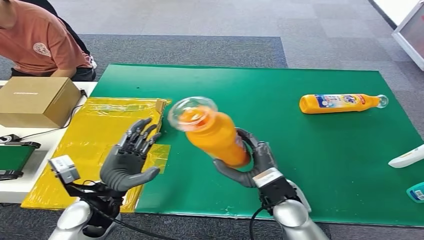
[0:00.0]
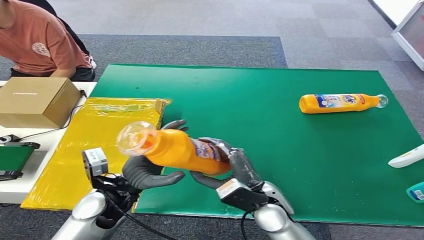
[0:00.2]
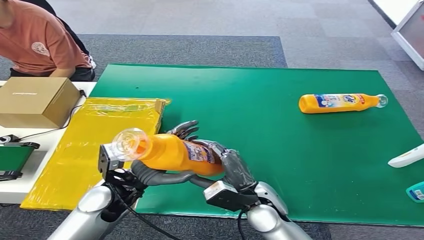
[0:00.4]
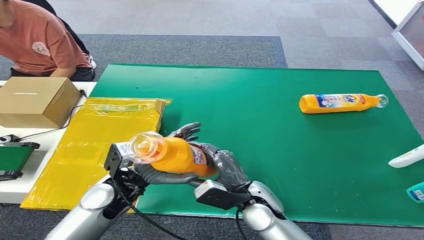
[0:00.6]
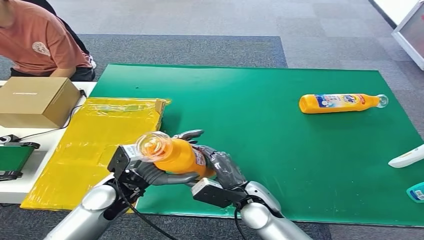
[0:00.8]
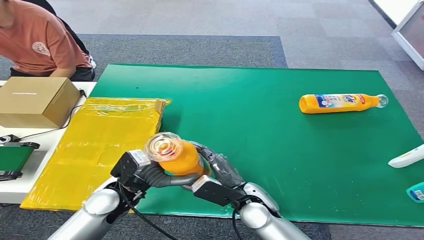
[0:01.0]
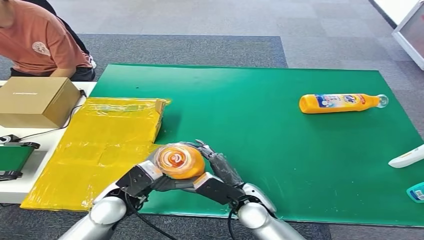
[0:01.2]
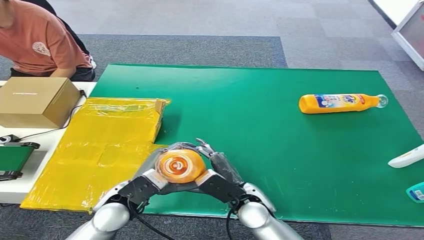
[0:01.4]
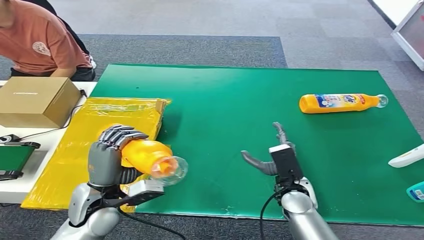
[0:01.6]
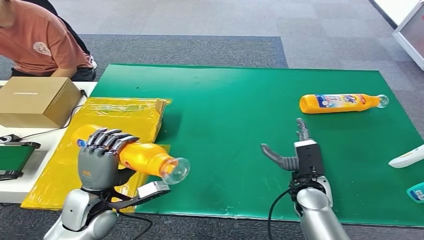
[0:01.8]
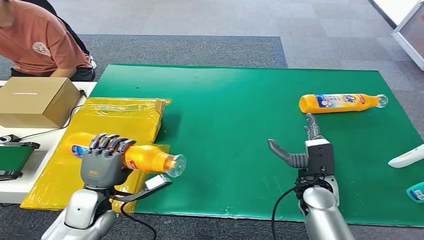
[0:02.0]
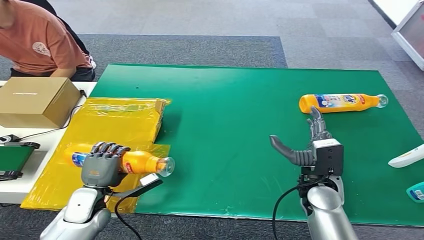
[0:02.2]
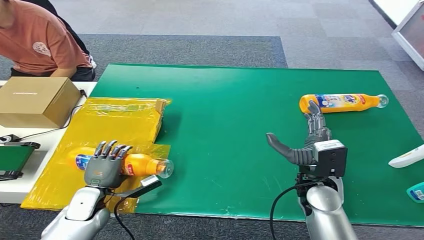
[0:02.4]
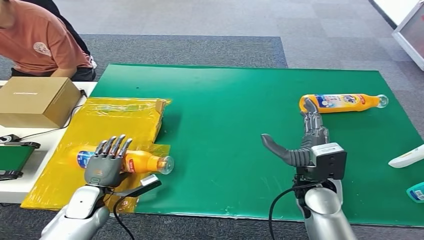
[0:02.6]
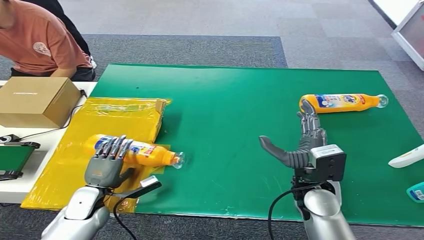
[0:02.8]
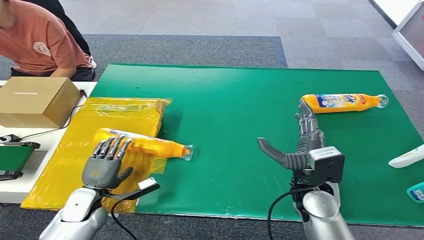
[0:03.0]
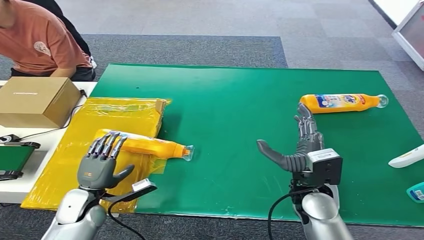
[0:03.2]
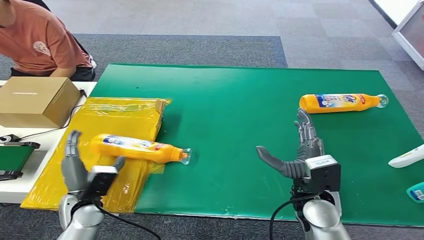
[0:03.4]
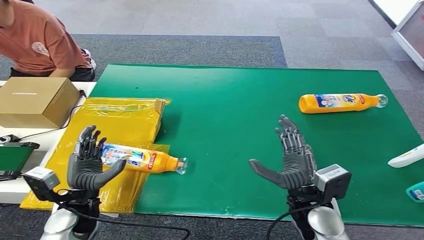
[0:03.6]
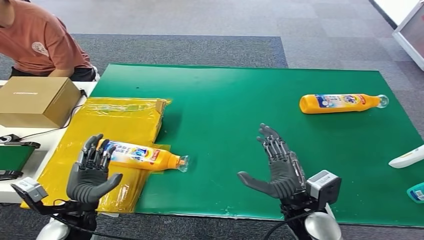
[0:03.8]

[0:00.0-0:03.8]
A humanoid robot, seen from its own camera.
Step, 0:00.0 to 0:03.8: Turn the bottle to the front side.
0:00.0 to 0:01.2: The right hand ends up some 5 cm from where it was.
0:01.2 to 0:02.6: The left hand travels to the left and downward by about 15 cm. The right hand moves to the right and upward, approximately 10 cm.
0:02.6 to 0:03.8: The left hand goes about 10 cm upward and backward, while the right hand heads backward, covering some 5 cm.

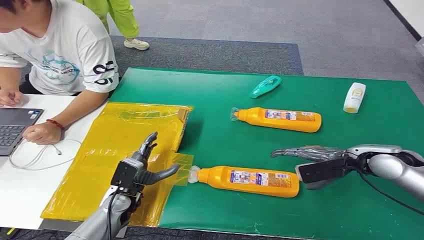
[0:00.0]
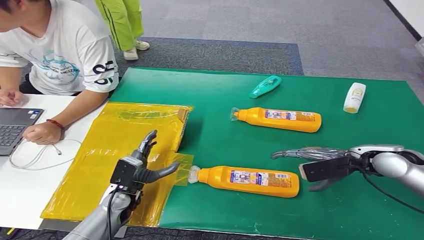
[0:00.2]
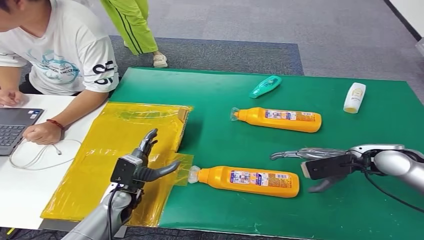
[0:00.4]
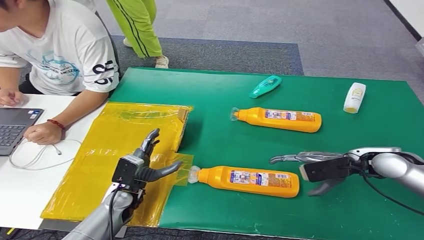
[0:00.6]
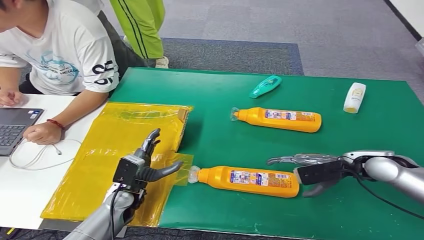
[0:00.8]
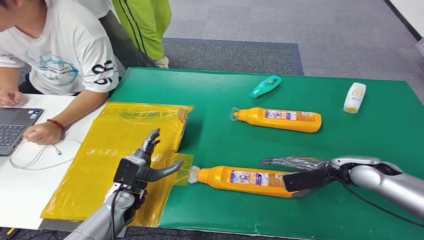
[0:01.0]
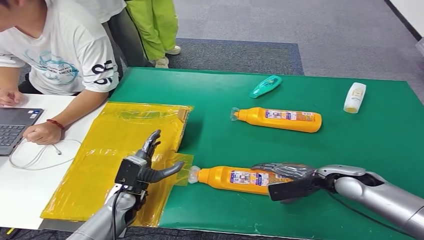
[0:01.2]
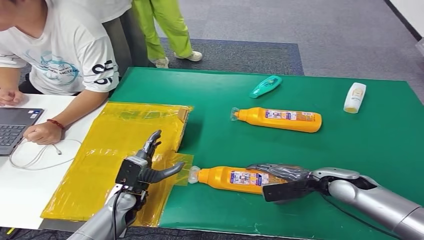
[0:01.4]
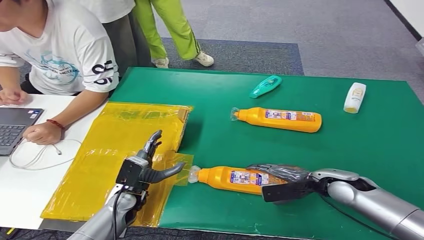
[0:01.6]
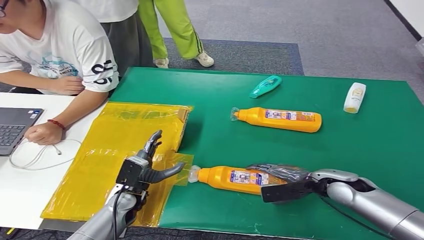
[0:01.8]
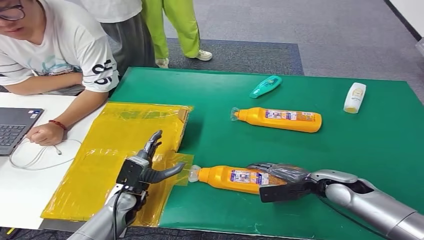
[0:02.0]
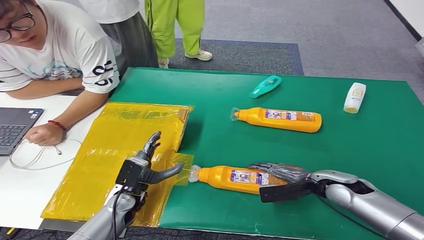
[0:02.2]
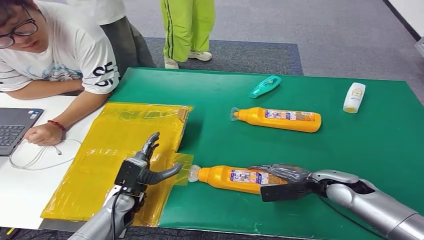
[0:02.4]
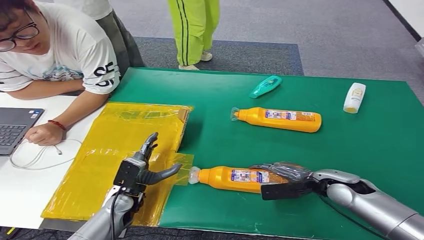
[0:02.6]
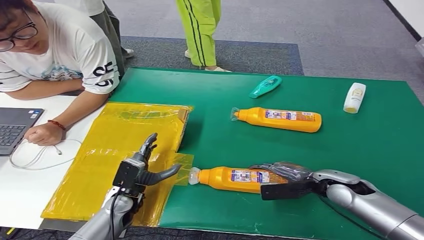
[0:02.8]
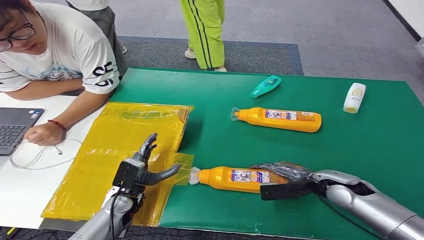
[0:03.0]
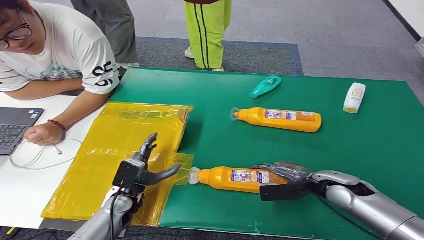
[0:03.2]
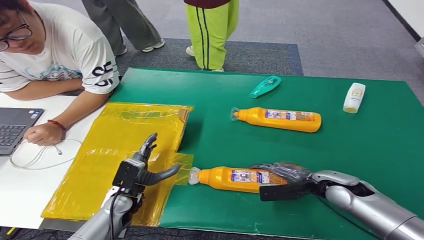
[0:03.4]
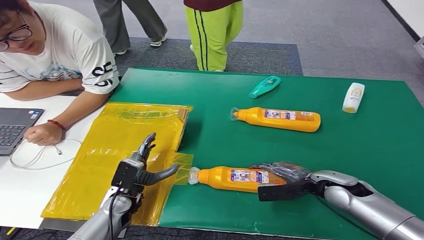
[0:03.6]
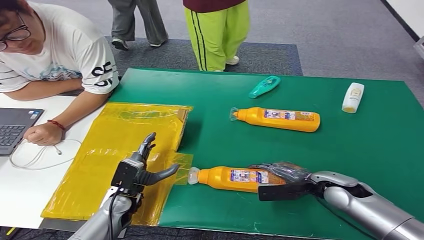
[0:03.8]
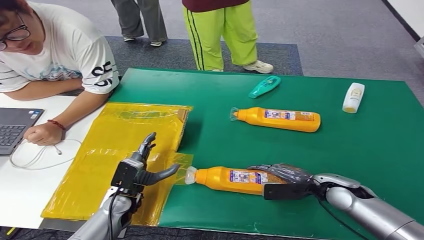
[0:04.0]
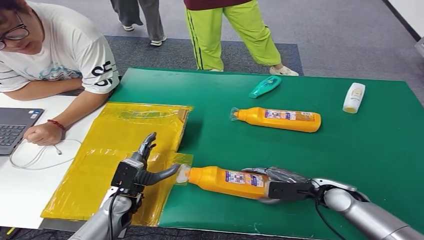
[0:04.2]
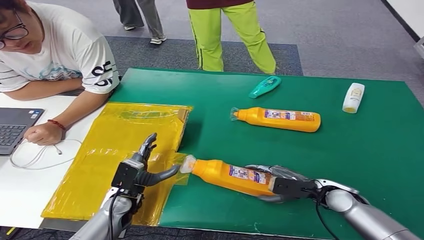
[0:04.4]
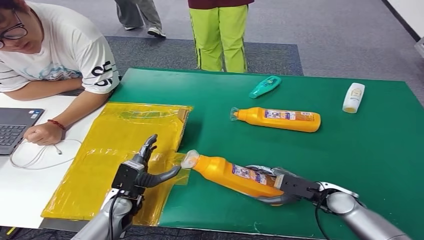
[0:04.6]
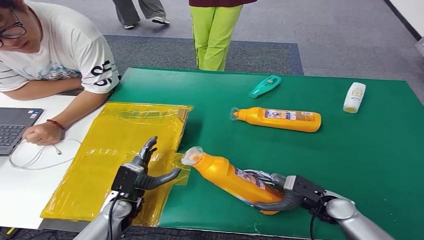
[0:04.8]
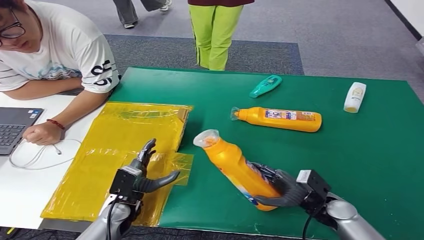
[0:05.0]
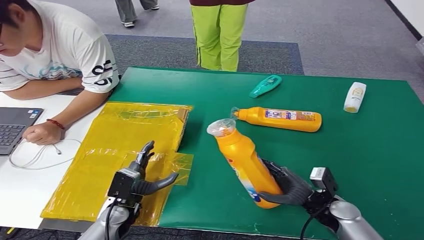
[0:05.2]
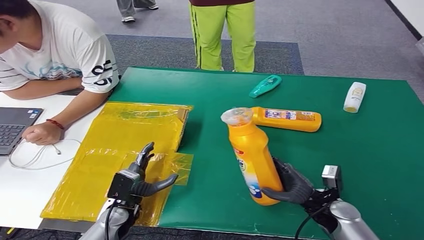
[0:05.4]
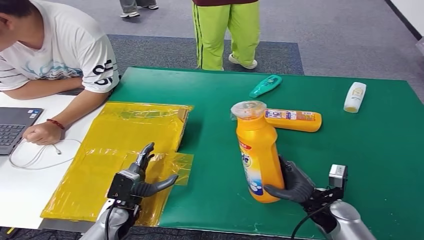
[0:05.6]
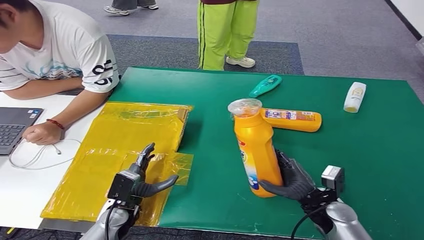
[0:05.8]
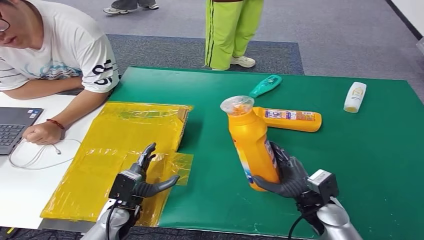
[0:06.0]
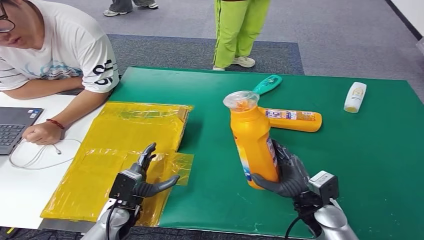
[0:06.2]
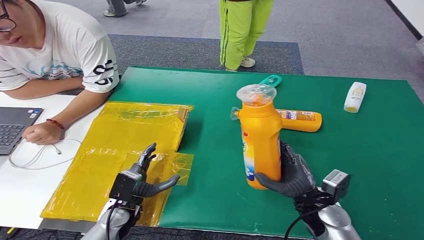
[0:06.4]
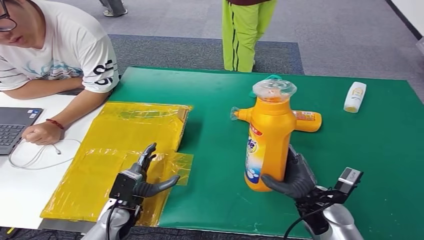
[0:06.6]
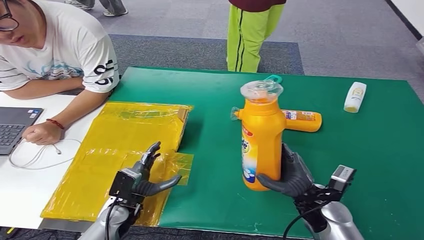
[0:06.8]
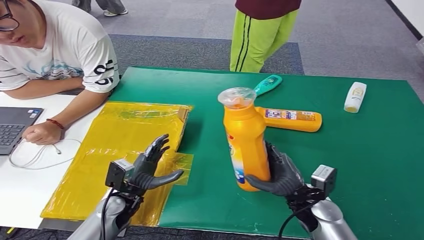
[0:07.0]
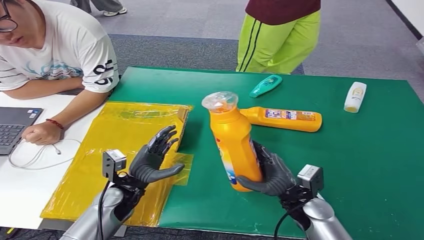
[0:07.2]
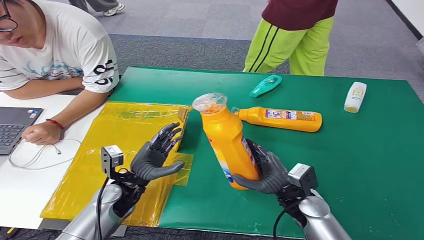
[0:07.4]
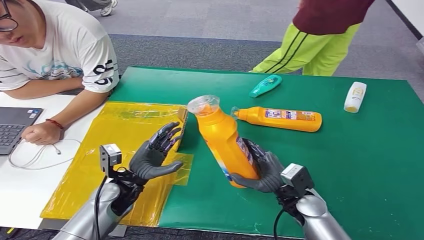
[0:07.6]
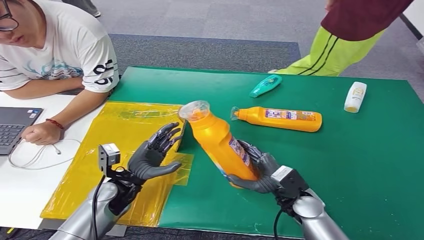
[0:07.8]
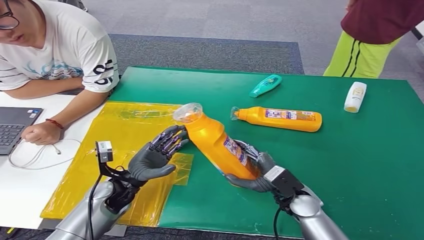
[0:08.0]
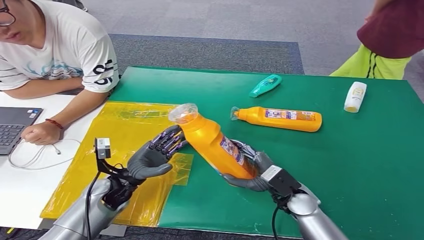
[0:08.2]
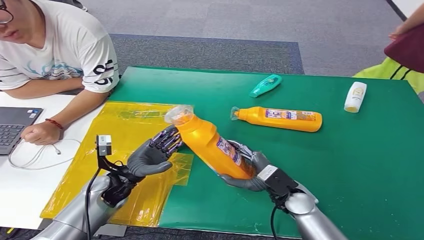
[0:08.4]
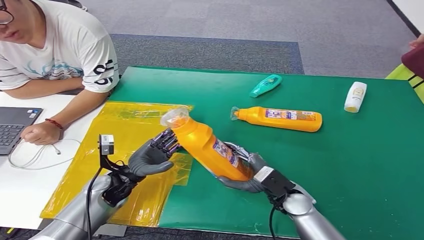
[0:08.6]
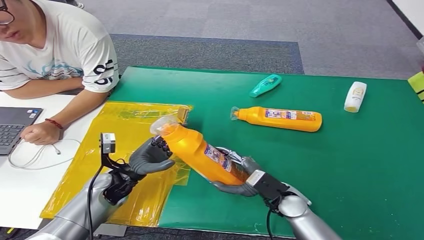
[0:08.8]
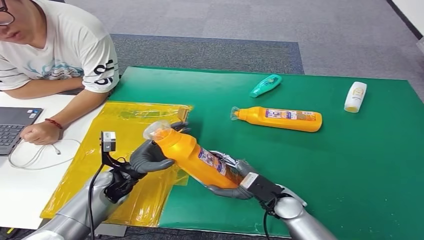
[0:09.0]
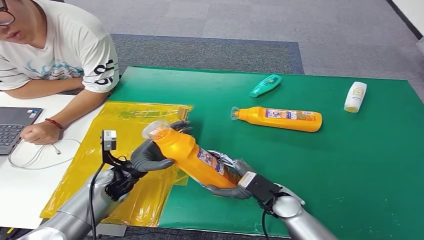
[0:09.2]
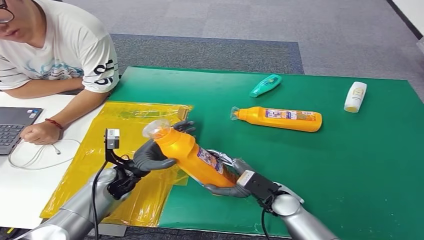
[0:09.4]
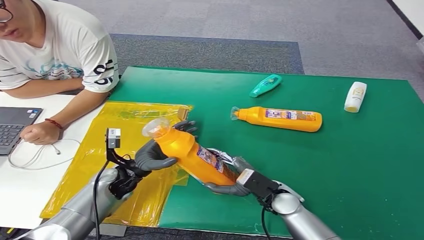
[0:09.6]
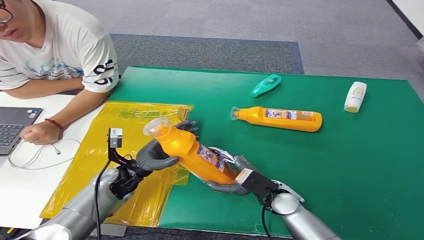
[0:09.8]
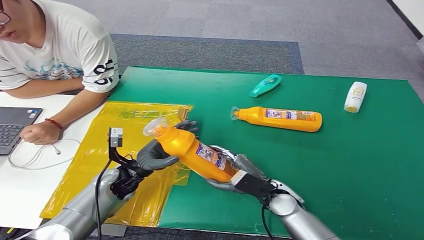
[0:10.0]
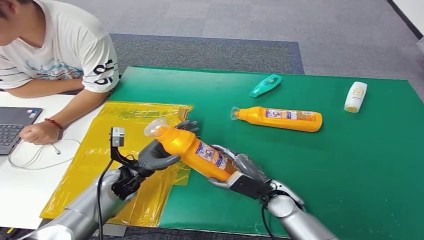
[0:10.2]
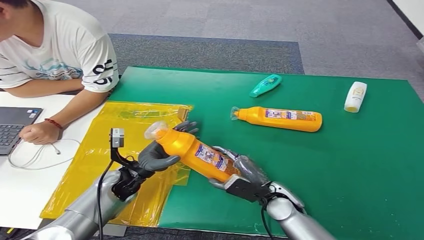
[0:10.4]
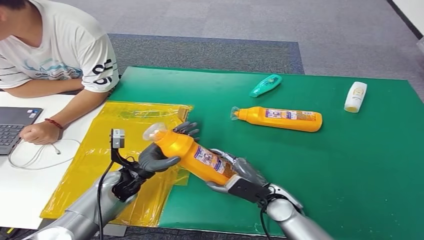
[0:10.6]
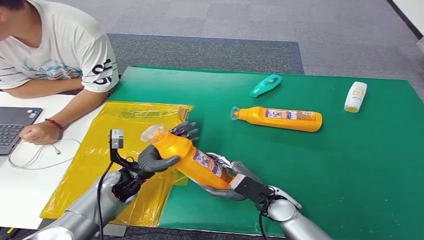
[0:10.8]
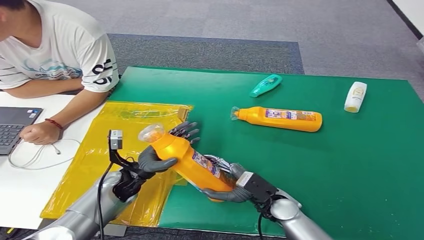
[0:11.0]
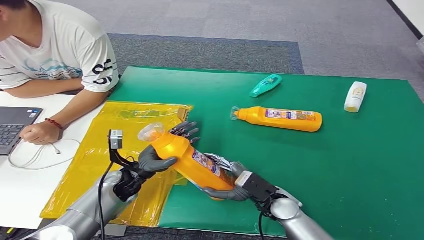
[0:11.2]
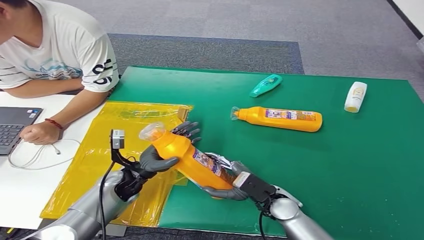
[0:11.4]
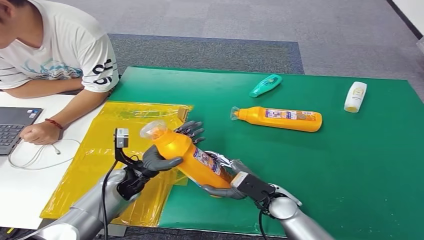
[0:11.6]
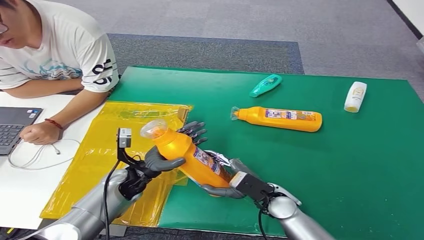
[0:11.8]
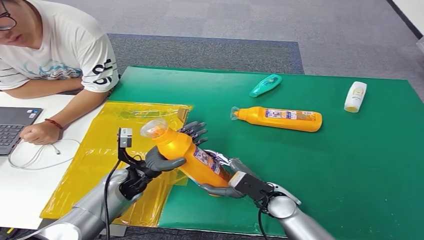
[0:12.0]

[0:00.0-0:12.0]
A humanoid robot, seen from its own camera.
Step, 0:00.0 to 0:06.2: Pick up the bottle from the table.
0:09.0 to 0:10.4: There are only small adjustments of the hands.

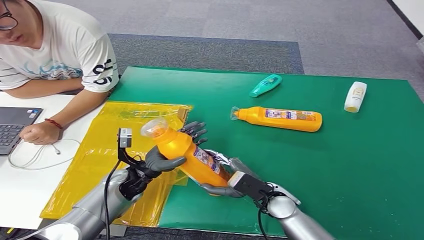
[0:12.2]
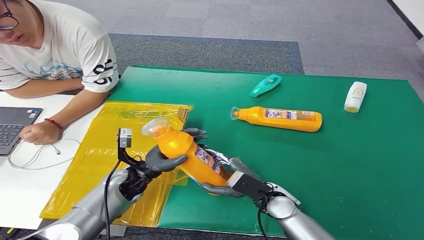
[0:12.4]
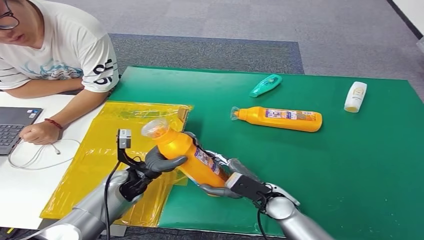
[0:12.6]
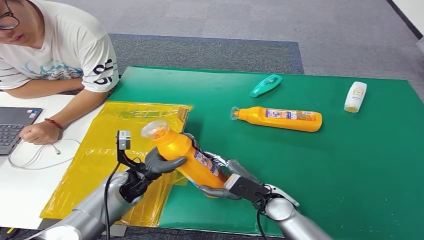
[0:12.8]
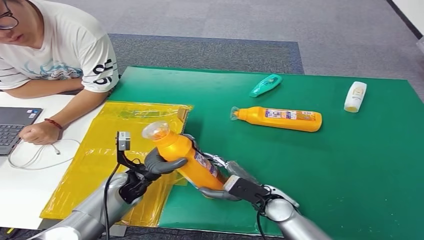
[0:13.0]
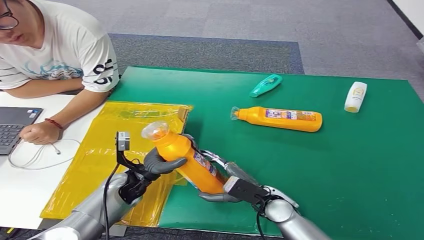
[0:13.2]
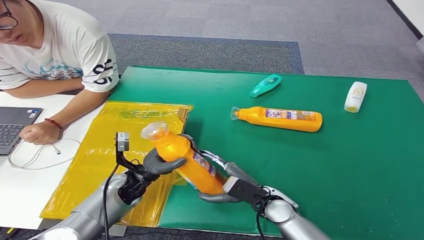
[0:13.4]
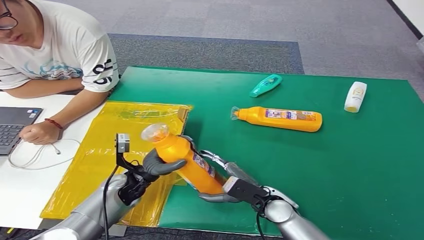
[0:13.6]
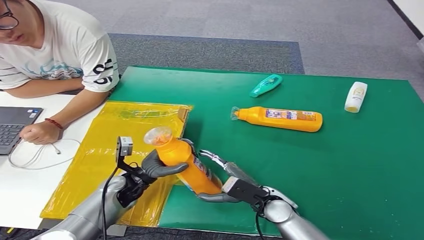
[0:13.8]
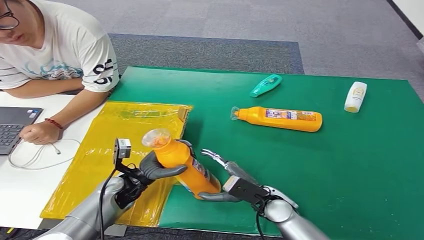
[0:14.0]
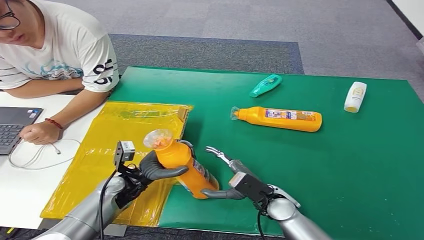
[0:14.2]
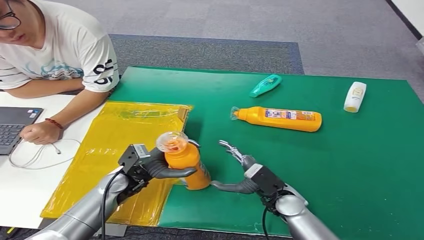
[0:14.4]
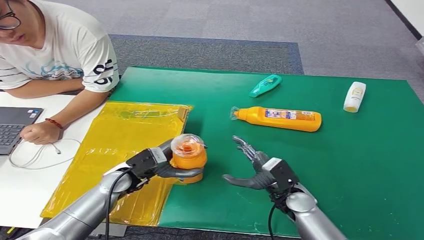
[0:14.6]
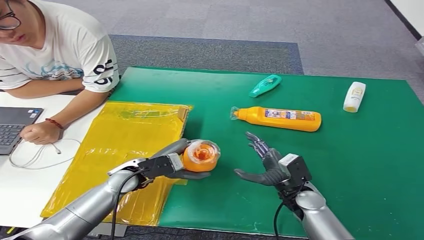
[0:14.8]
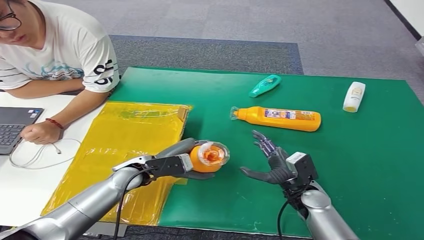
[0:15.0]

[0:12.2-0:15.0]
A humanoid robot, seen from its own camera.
0:12.2 to 0:13.6: The hands move only a little.
0:13.6 to 0:15.0: The left hand travels upward by roughly 5 cm, while the right hand travels to the right by about 5 cm.
